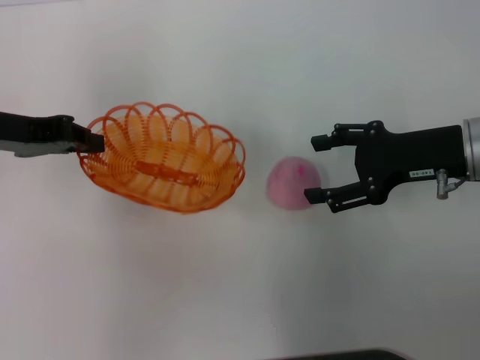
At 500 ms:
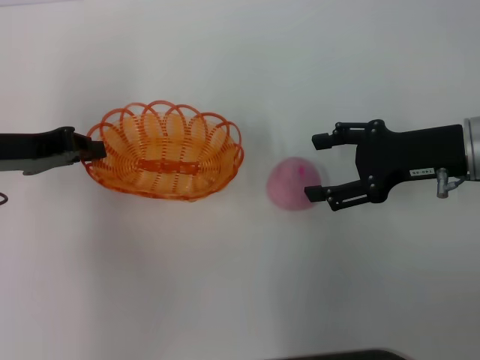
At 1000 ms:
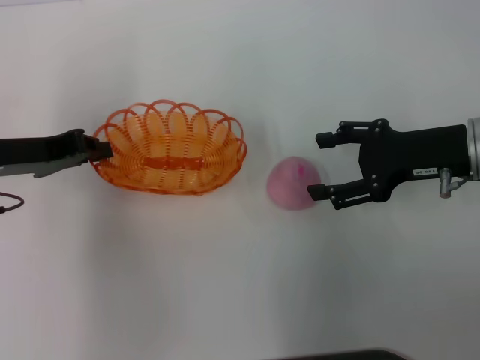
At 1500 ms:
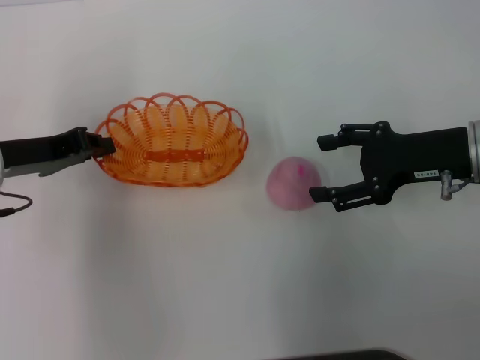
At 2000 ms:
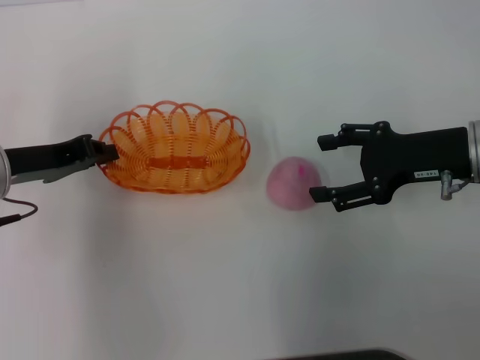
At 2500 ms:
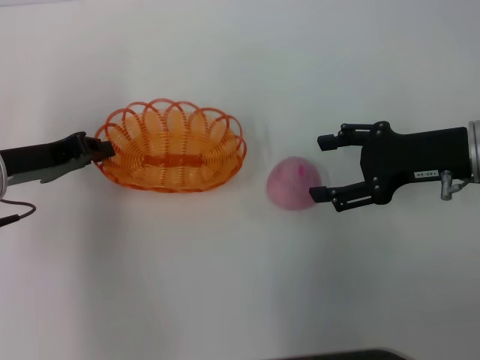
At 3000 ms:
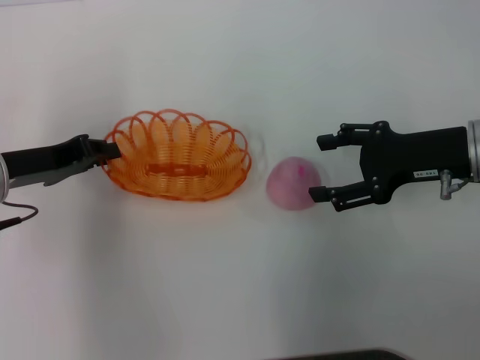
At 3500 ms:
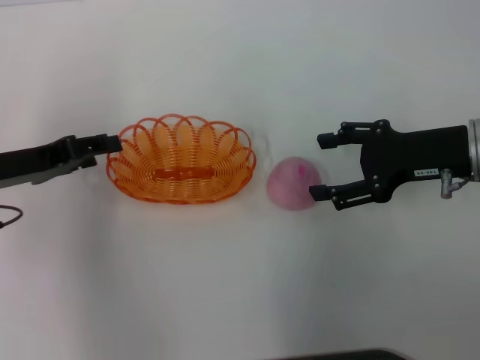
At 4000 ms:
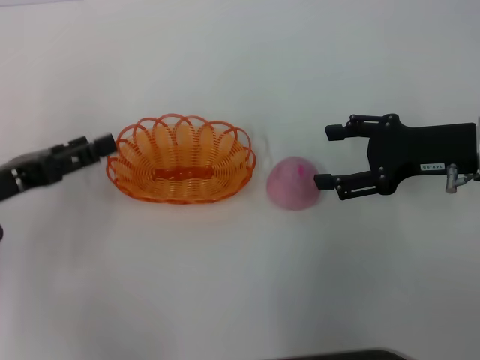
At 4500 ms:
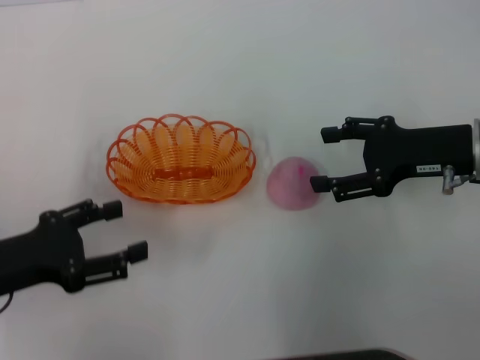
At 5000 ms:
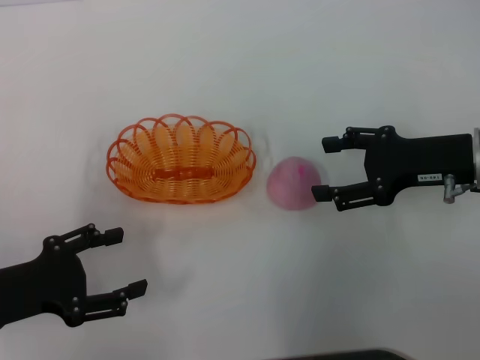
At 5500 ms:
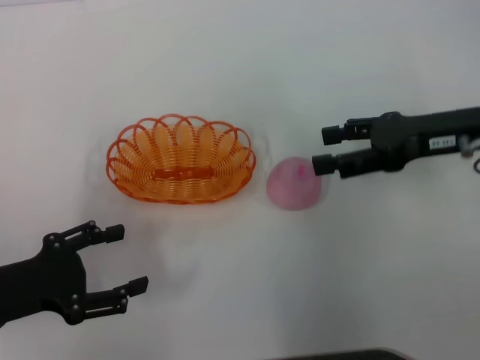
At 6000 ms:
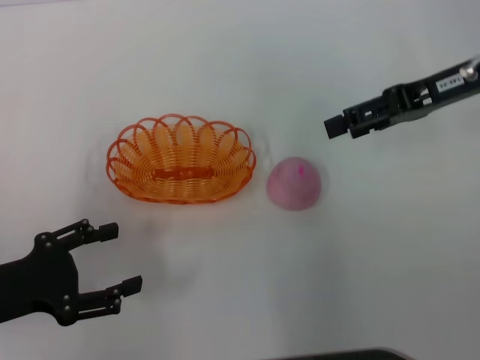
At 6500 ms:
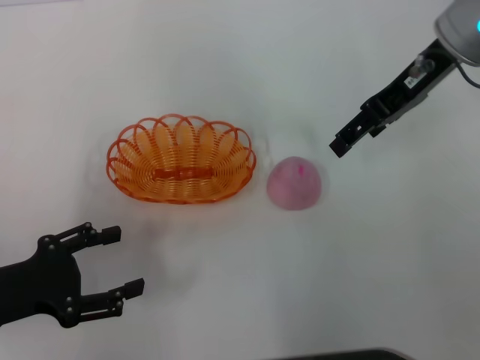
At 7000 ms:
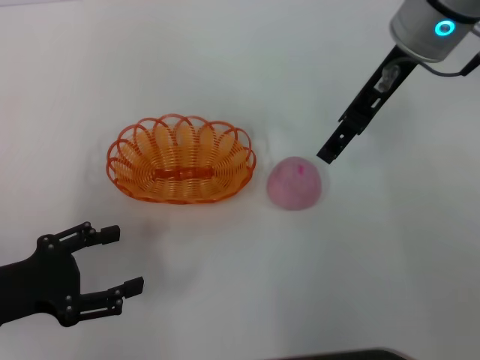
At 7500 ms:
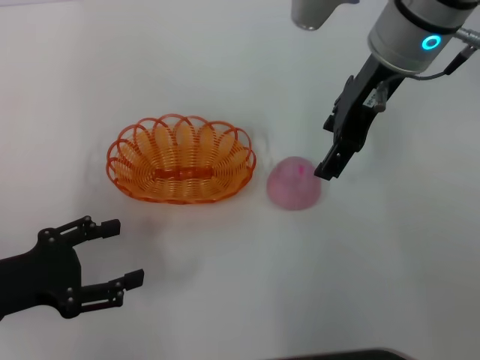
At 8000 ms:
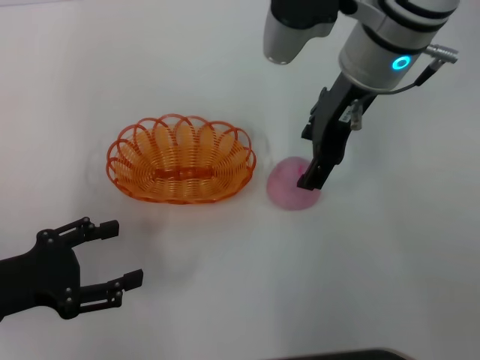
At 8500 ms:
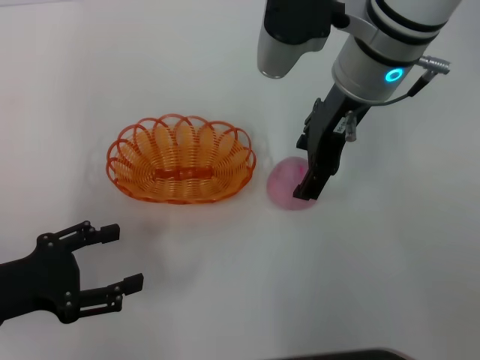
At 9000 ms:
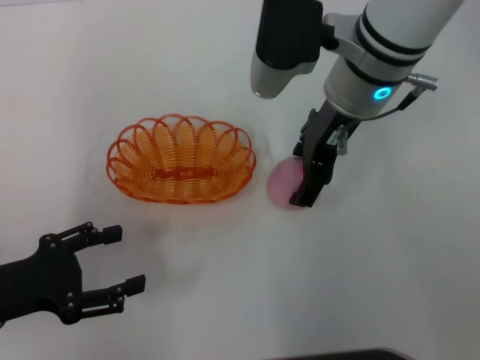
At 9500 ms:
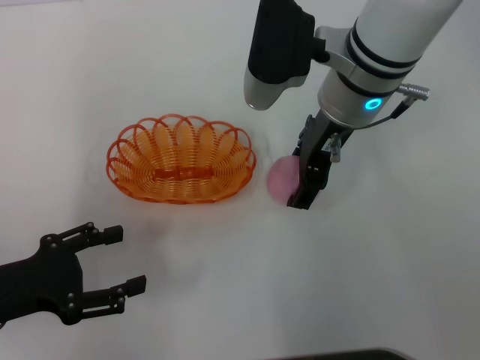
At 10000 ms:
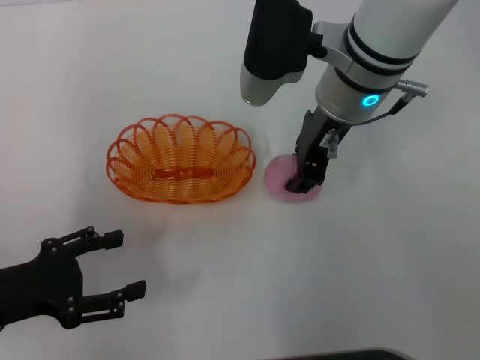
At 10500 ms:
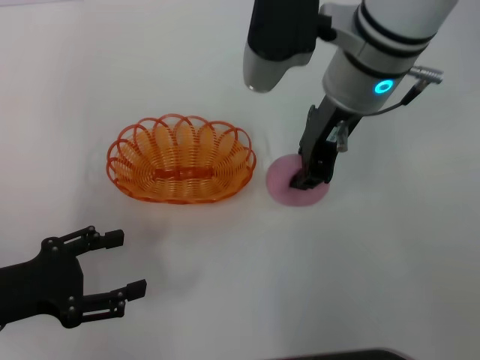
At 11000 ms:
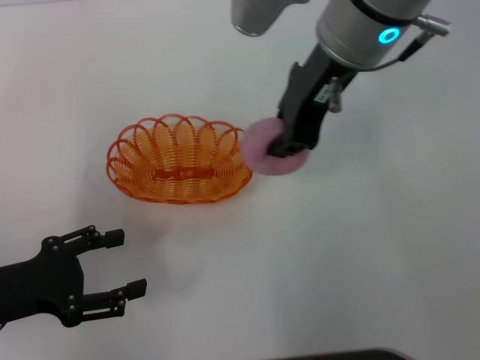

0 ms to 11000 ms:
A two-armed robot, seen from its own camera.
Step, 0 ms to 3500 ms: Place the basket in the center of view with the left gripper.
Step, 4000 ms to 10500 ms: Pick up the peach with the right gripper.
0 ms to 2000 ms: The left gripper shifts about 5 cm downward.
2000 ms to 3500 ms: The left gripper opens.
3500 ms to 5500 ms: The left gripper is displaced backward by about 10 cm, and opens.
5500 ms to 7500 ms: The right gripper heads to the left, upward and forward, covering about 15 cm.
7500 ms to 9000 ms: The right gripper shifts by about 5 cm.
9000 ms to 11000 ms: The right gripper shifts some 5 cm upward, and closes its fingers.

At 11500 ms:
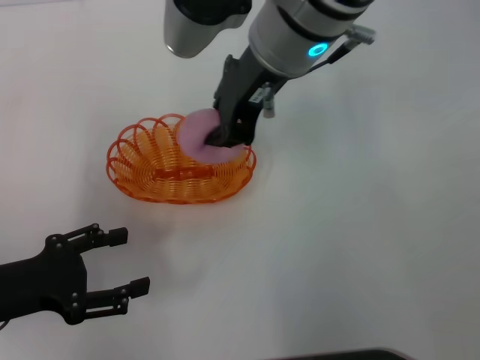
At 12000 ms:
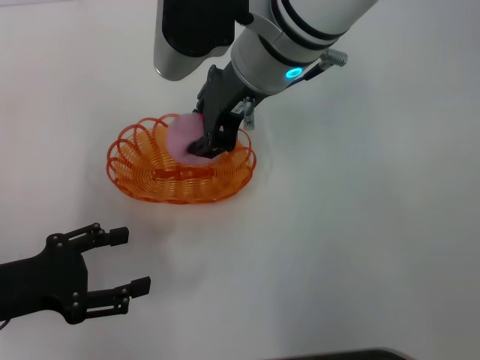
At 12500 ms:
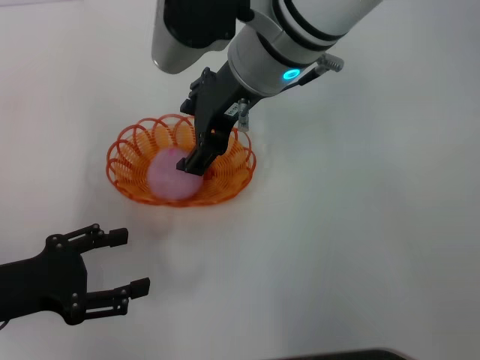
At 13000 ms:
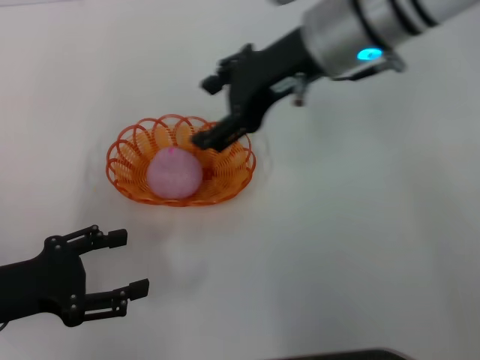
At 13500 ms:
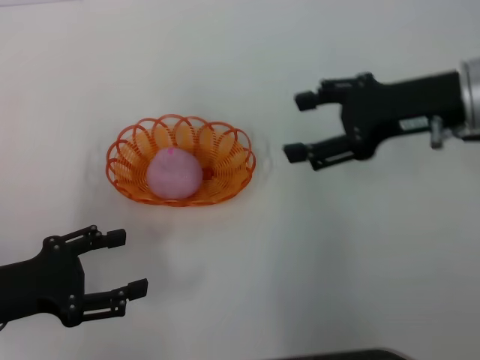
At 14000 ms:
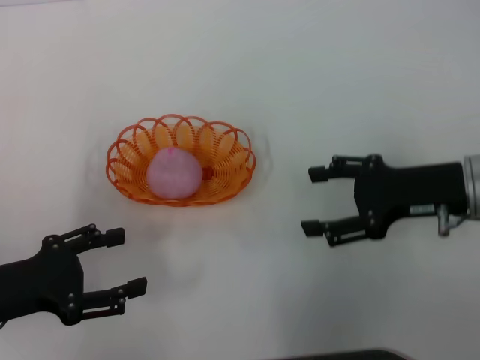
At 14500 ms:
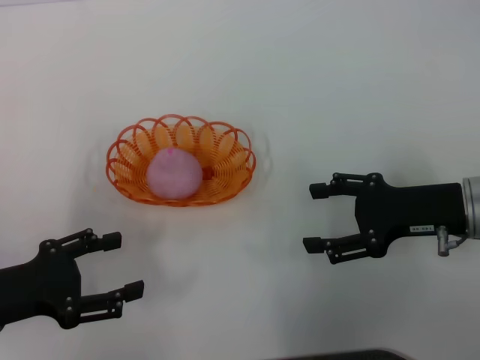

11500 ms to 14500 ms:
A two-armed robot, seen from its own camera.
Step, 11500 ms to 13000 ms: Place the peach into the basket with the right gripper.
11500 ms to 13000 ms: The right gripper shifts approximately 5 cm to the right, and opens its fingers.
13000 ms to 14500 ms: The right gripper shifts some 25 cm to the right, downward and backward.
